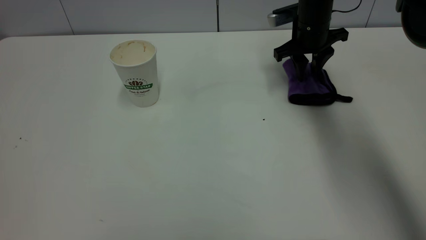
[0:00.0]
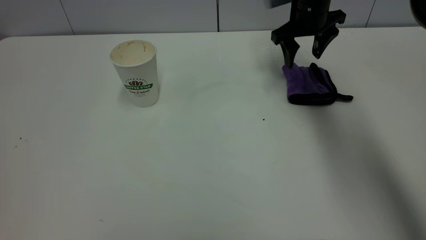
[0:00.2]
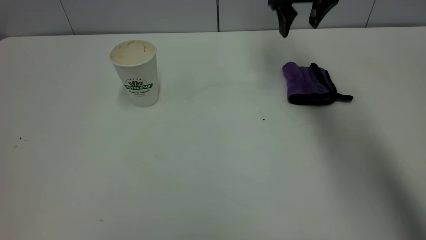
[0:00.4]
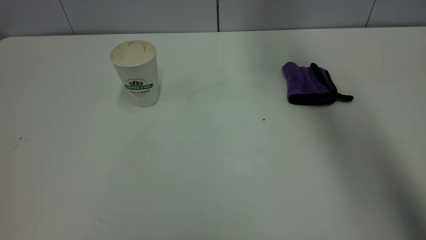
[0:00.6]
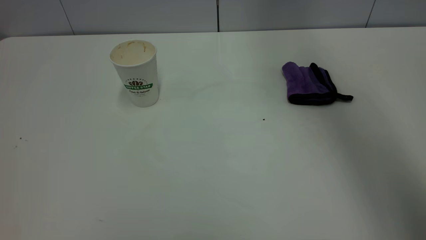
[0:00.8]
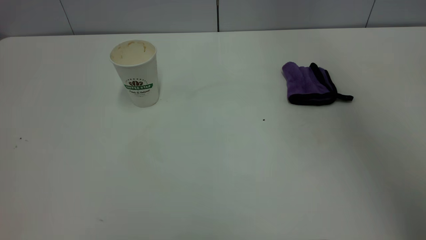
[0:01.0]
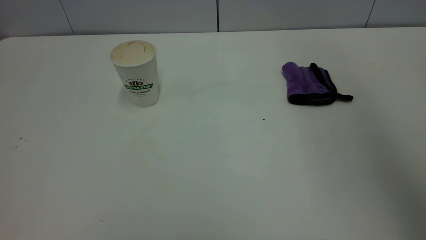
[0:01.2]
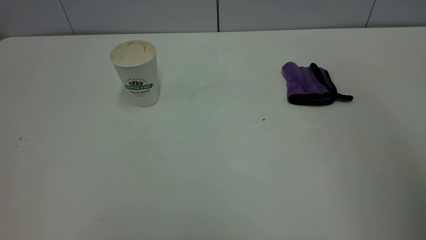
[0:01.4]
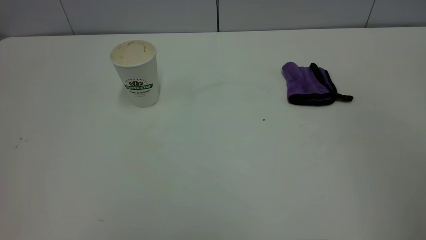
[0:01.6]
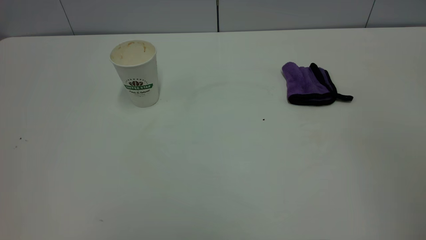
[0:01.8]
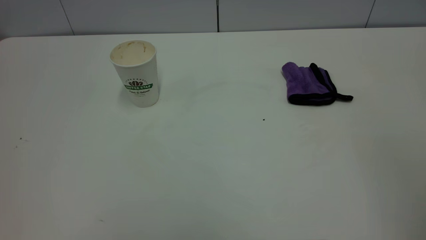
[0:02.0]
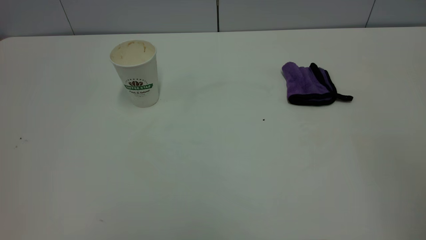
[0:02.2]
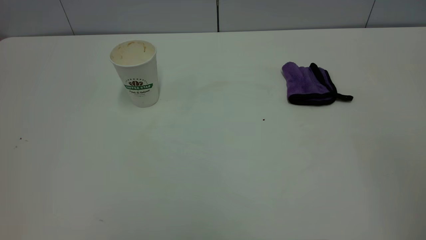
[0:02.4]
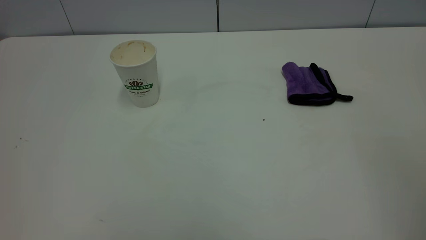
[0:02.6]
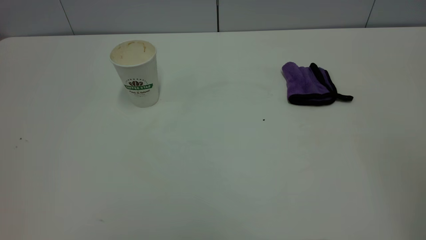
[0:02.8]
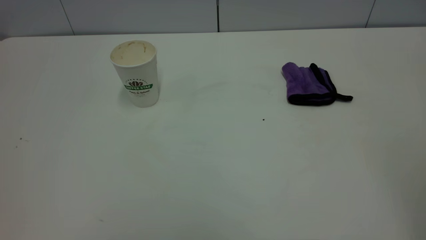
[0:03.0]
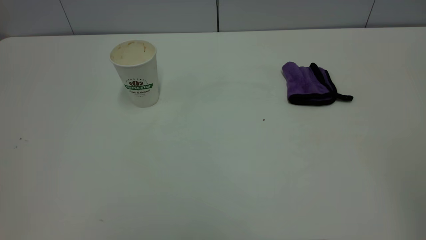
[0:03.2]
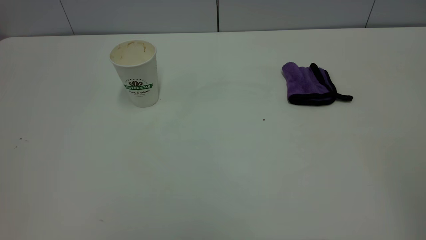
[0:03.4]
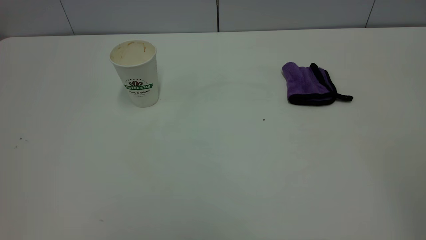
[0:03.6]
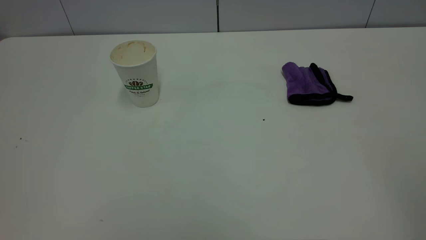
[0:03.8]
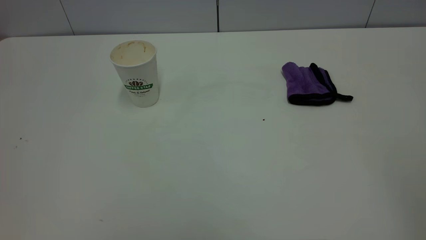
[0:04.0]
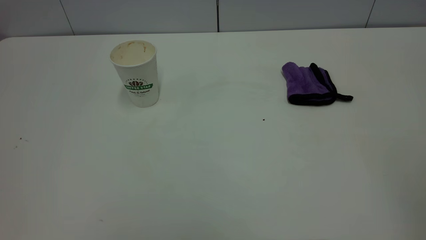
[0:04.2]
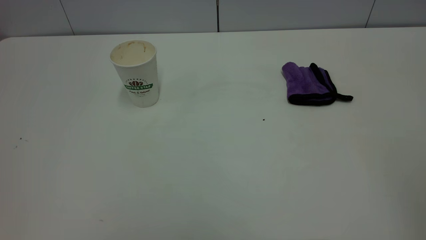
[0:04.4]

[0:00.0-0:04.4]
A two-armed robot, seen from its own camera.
Task of the whole recording: the left gripper pick up the fallen cup and place it upright, the right gripper grasp the purple rag and wipe the coffee stain on the table, the right gripper put the purple rag back in its original position.
0:00.0 to 0:01.4: The right gripper heads backward and upward, covering some 50 cm, and opens its fingers.
